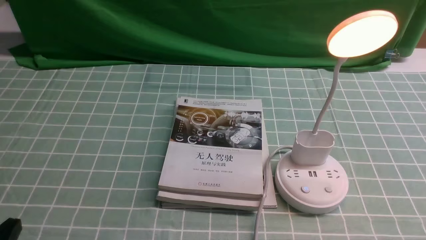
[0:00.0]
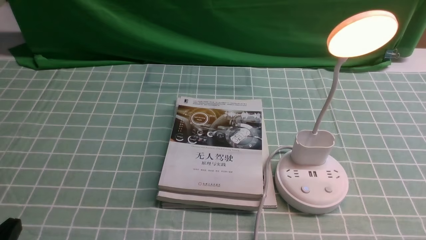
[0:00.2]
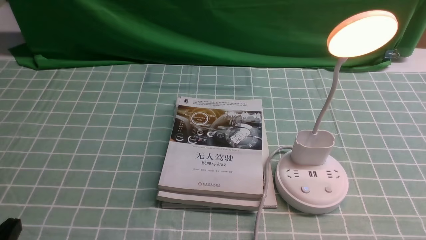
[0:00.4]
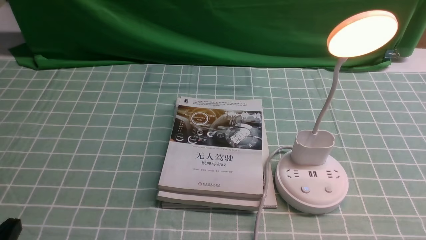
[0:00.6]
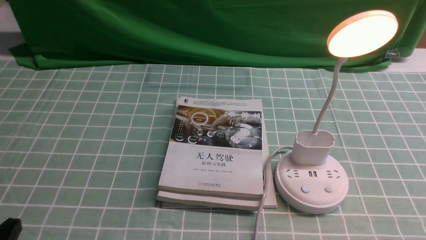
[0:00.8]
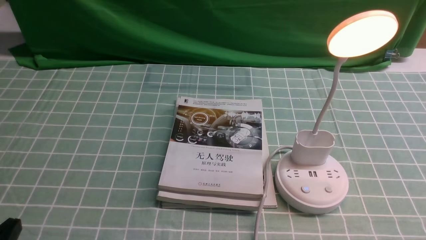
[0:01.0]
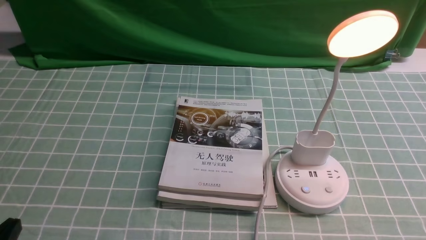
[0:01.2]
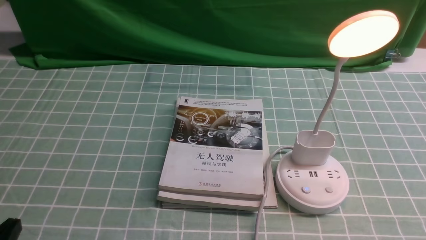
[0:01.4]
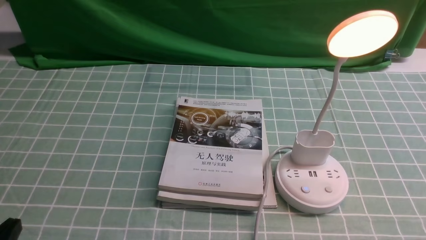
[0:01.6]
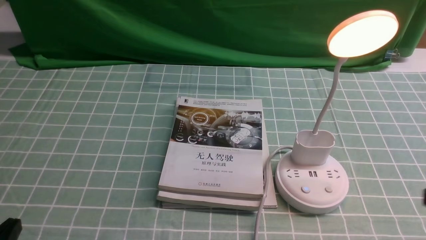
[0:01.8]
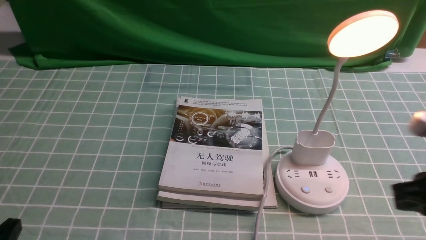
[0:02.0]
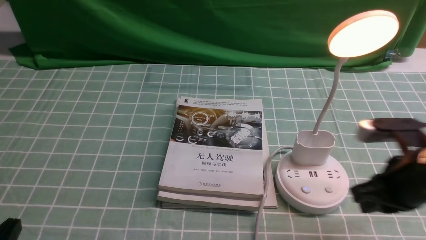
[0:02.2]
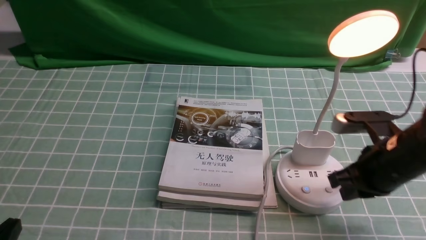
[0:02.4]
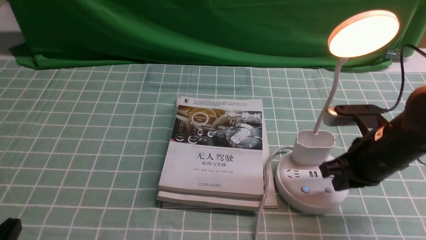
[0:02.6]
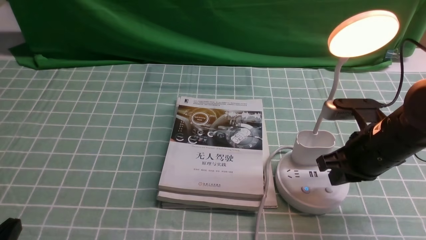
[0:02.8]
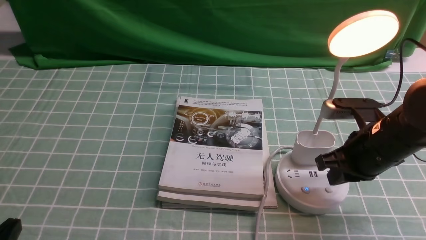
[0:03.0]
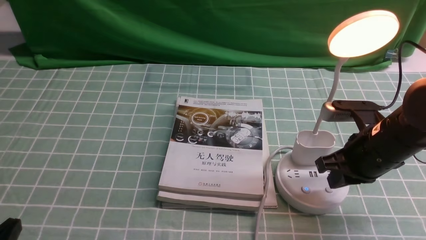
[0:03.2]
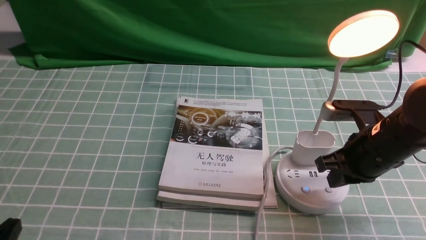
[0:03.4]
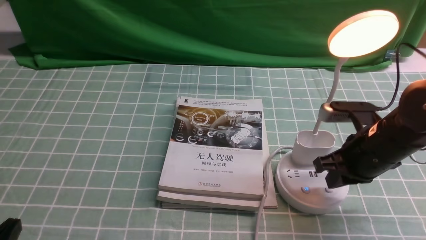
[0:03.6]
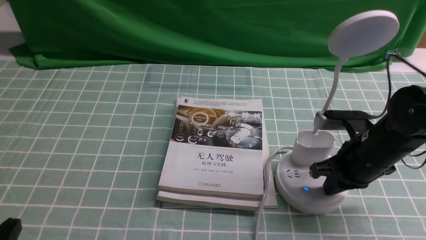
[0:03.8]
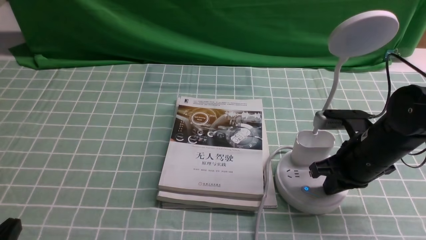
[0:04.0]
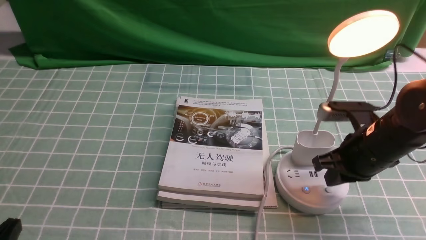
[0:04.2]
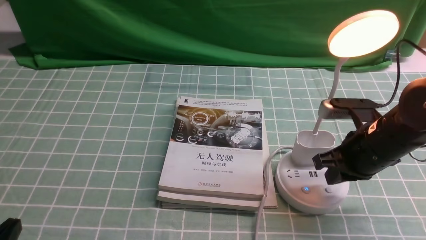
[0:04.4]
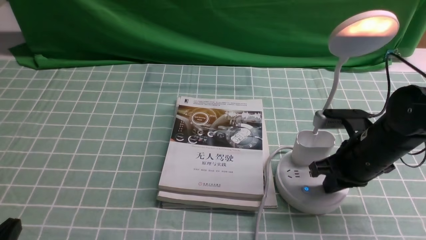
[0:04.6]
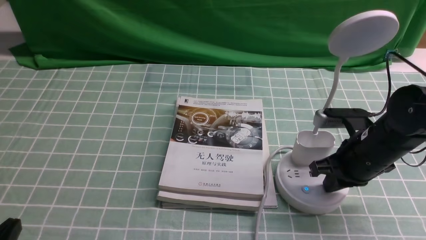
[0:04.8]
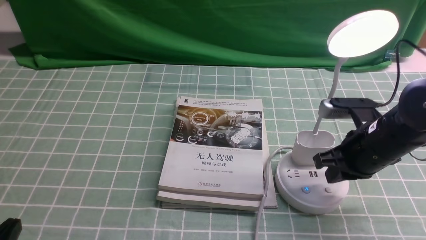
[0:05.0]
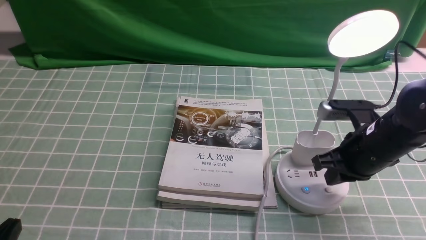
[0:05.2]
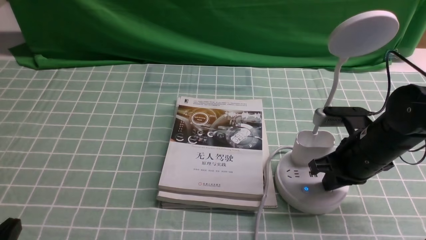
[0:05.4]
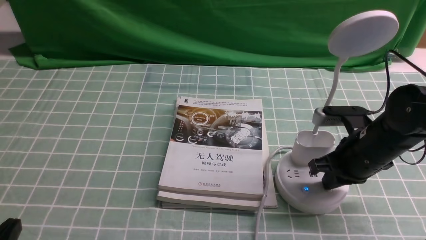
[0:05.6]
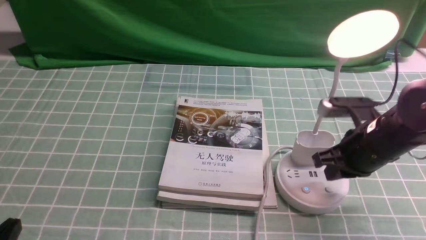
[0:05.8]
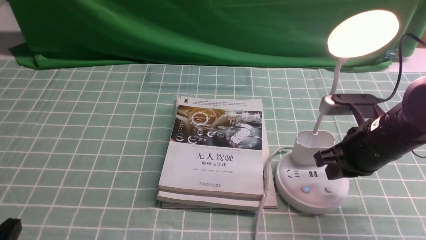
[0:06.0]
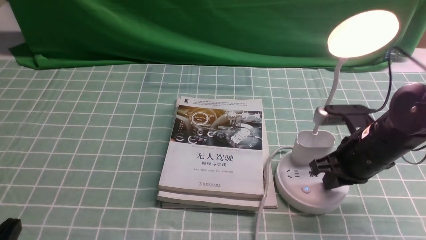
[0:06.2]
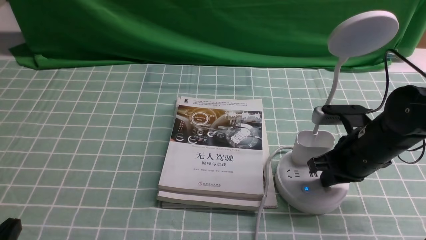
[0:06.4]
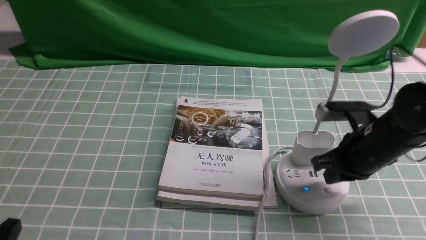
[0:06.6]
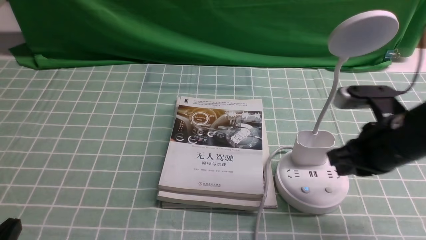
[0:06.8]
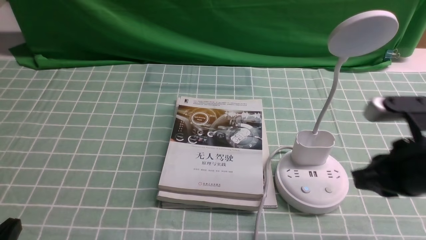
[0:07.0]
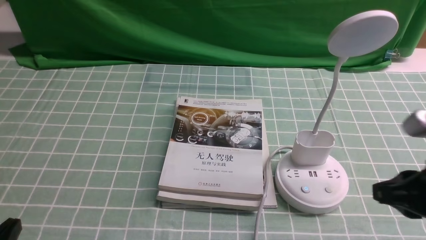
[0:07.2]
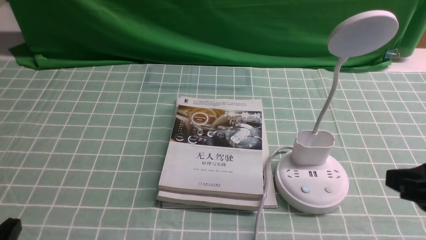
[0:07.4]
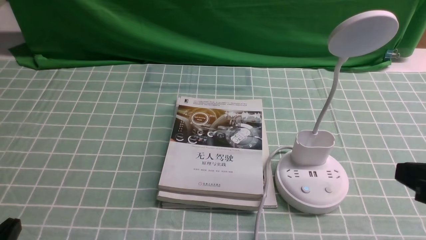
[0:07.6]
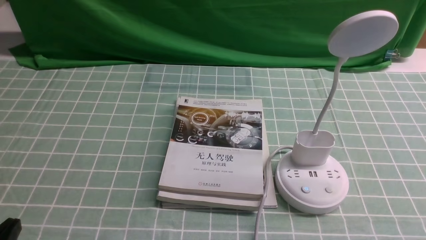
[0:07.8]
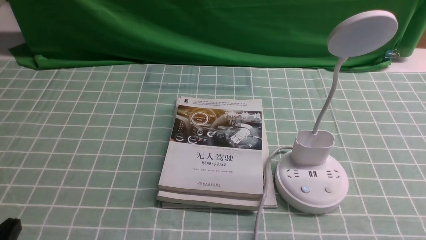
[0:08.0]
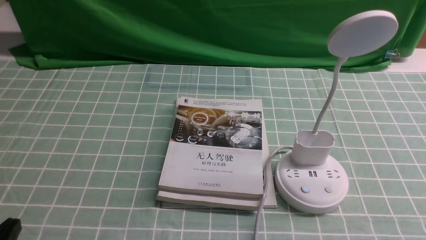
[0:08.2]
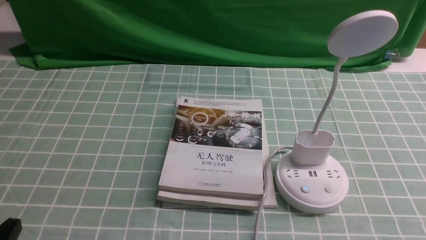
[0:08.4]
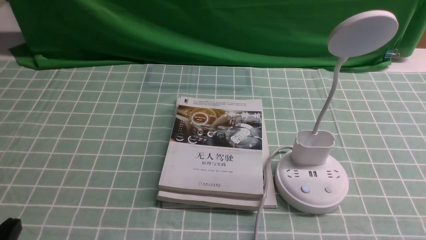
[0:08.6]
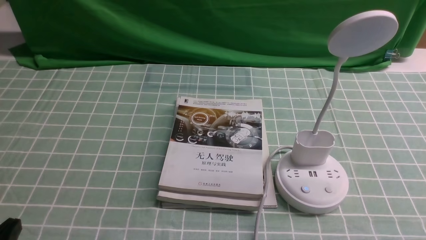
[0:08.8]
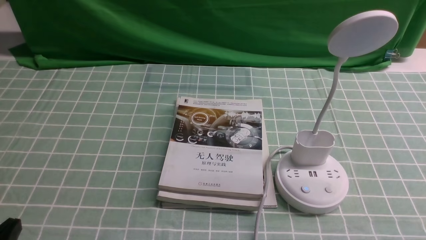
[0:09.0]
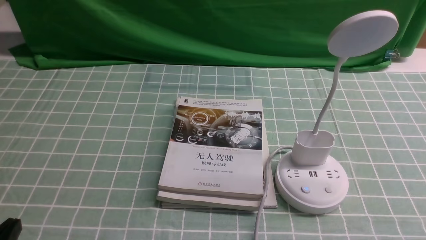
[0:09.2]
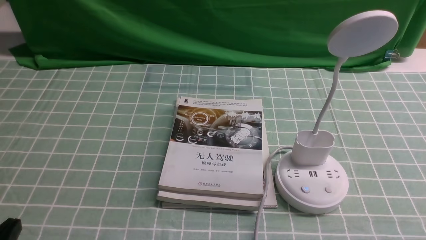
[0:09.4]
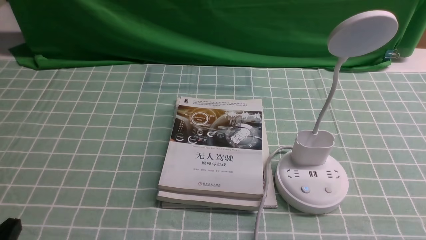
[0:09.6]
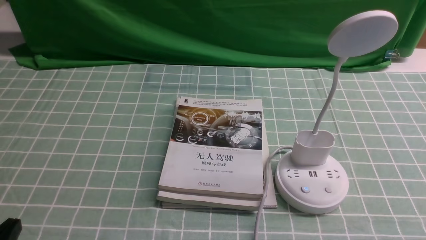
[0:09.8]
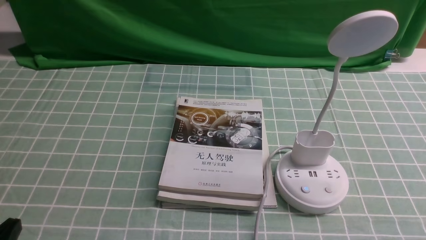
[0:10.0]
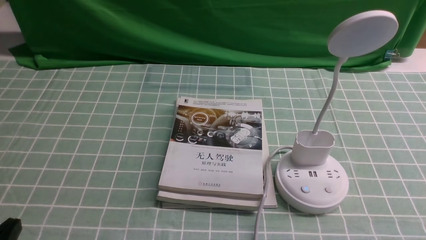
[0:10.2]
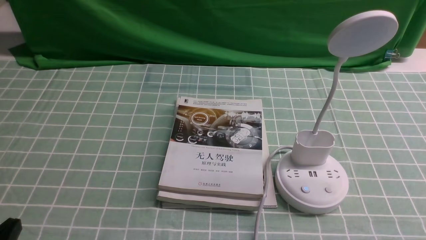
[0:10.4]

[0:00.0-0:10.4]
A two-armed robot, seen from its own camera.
Task of the whole recording: turn off the desk lamp on the blue coffee tablecloth by hand.
Step, 0:00.0 to 0:06.6: use the right arm to press the button switch on the lamp holder.
0:01.4 to 0:03.0: The right gripper is displaced forward by approximately 20 cm, and closes up.
0:03.0 to 0:04.4: The grippers move only a little.
0:04.4 to 0:06.0: Both grippers stay about where they are.
0:06.0 to 0:07.4: The right gripper travels backward and upward by roughly 15 cm.
0:07.4 to 0:09.0: The right gripper travels downward and backward by about 15 cm.
